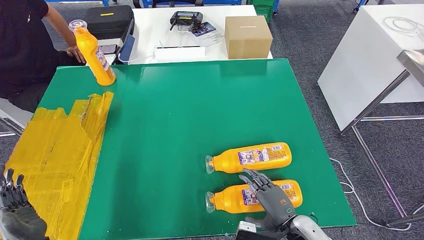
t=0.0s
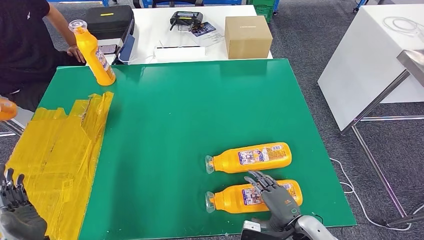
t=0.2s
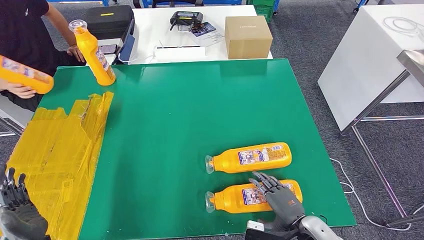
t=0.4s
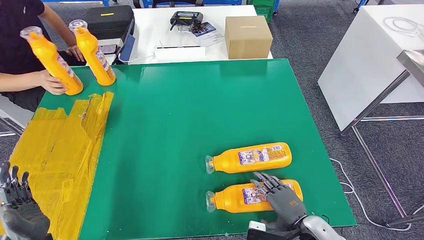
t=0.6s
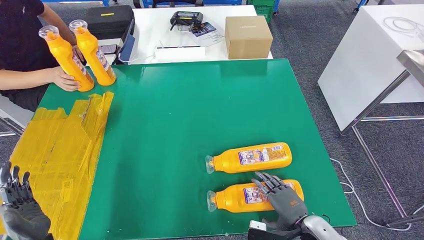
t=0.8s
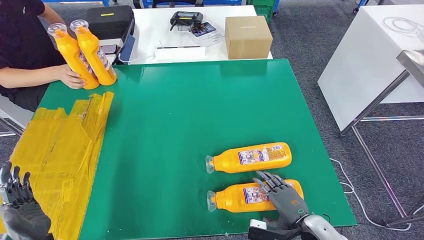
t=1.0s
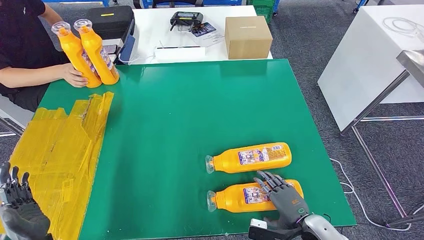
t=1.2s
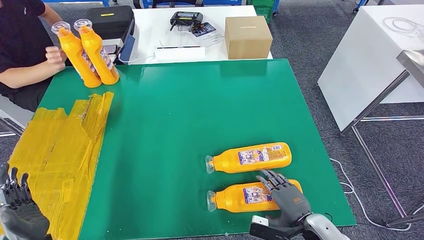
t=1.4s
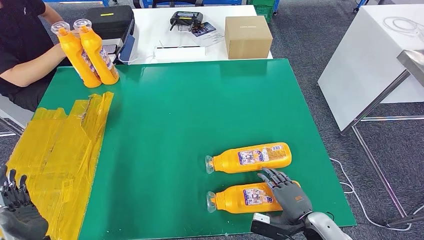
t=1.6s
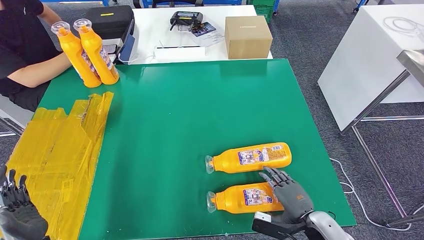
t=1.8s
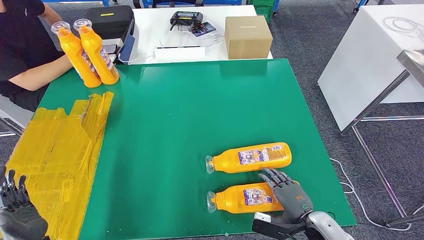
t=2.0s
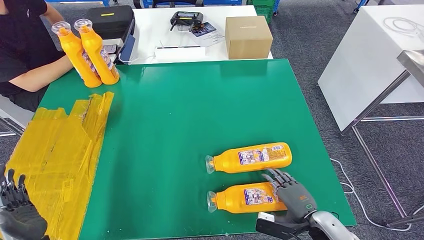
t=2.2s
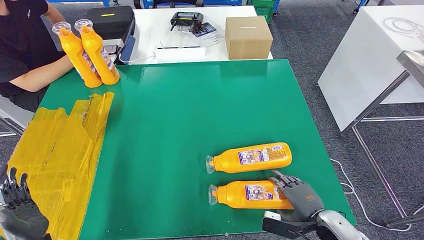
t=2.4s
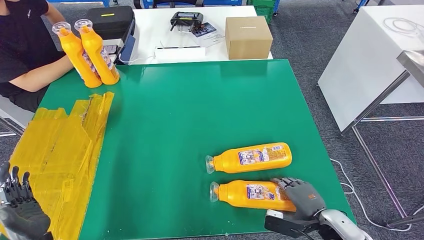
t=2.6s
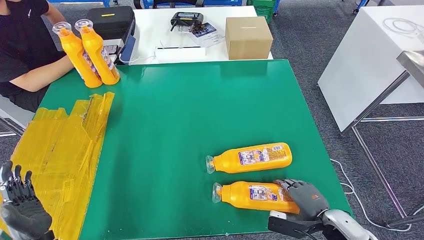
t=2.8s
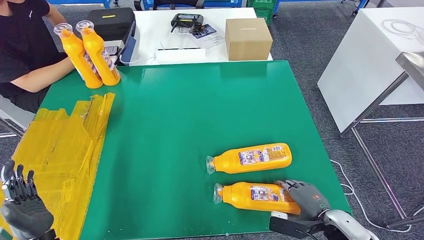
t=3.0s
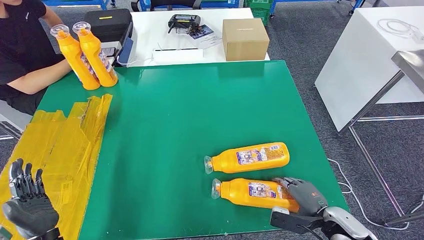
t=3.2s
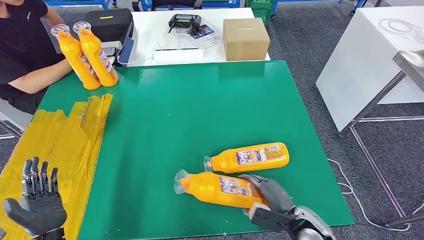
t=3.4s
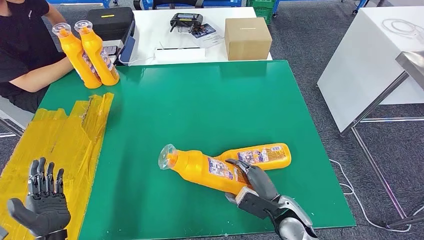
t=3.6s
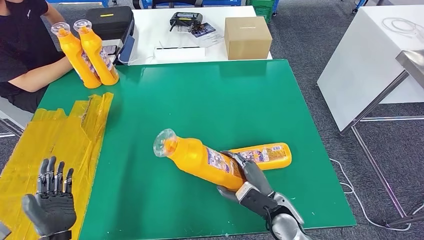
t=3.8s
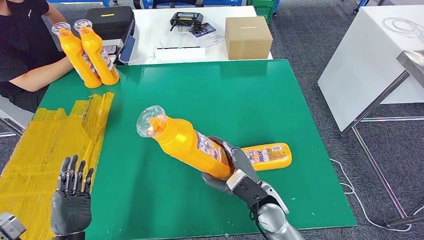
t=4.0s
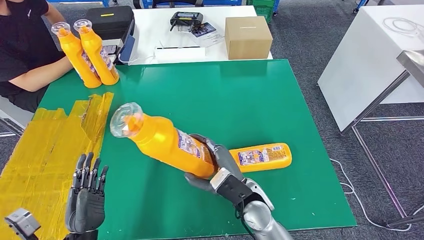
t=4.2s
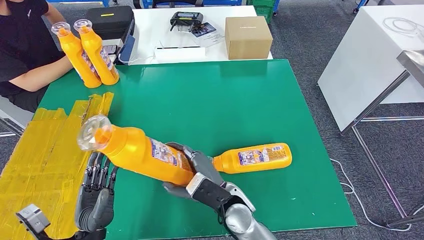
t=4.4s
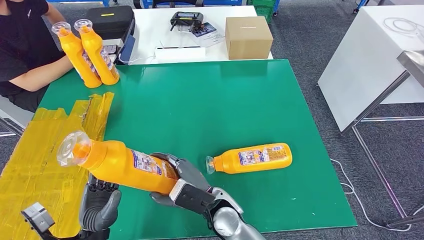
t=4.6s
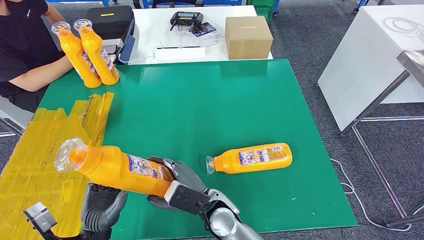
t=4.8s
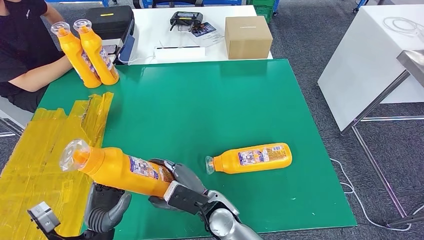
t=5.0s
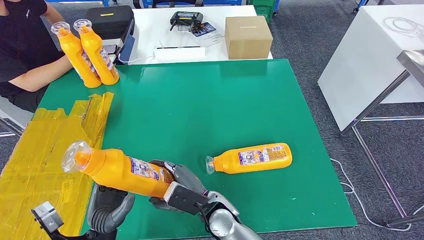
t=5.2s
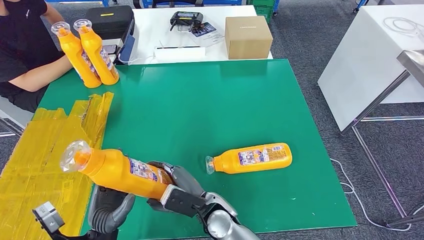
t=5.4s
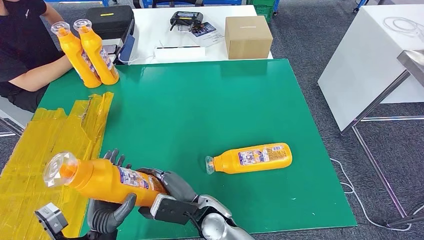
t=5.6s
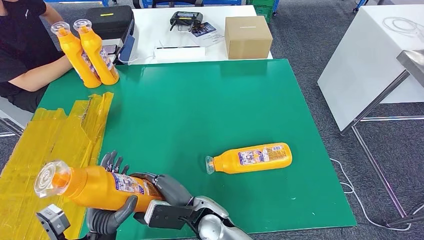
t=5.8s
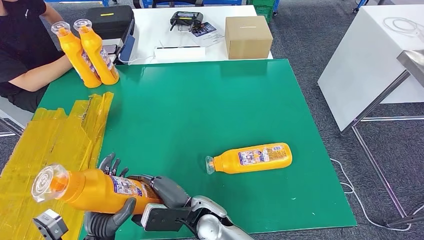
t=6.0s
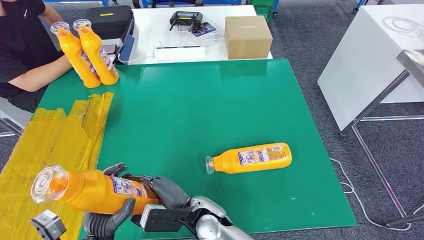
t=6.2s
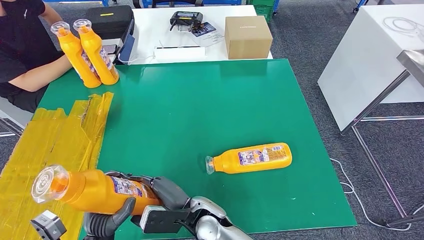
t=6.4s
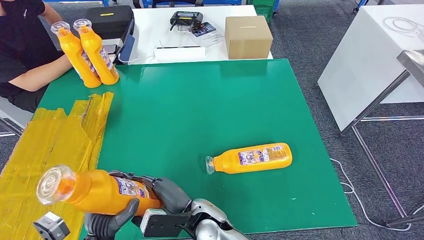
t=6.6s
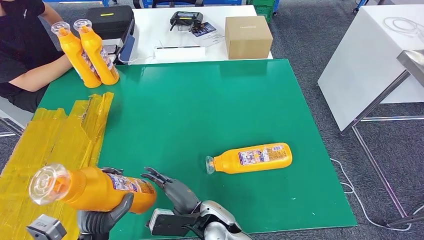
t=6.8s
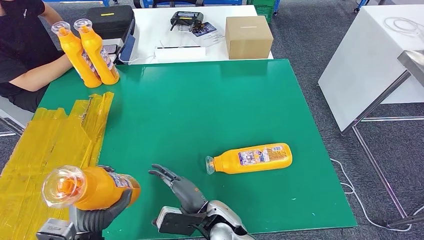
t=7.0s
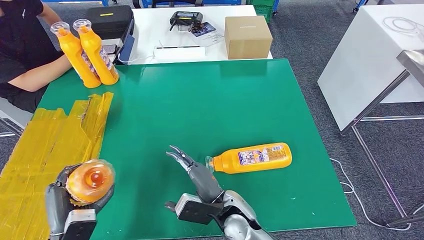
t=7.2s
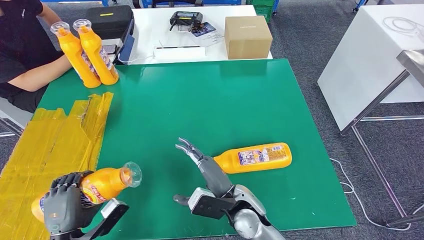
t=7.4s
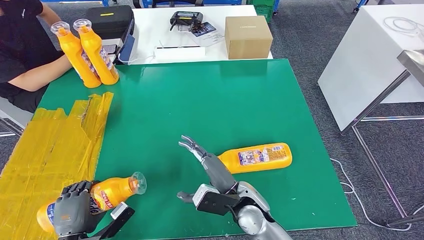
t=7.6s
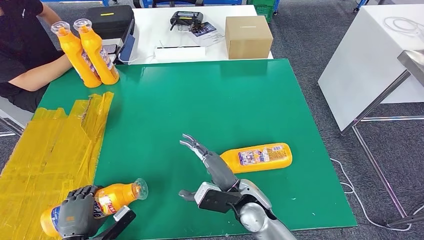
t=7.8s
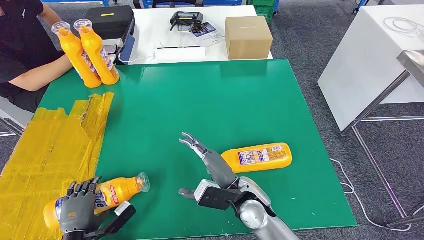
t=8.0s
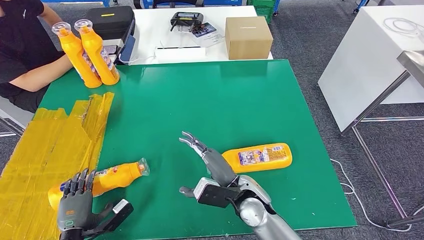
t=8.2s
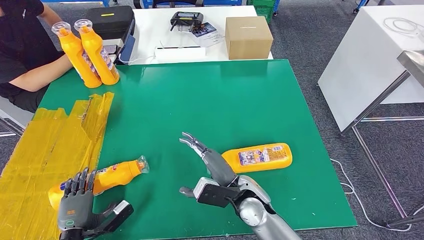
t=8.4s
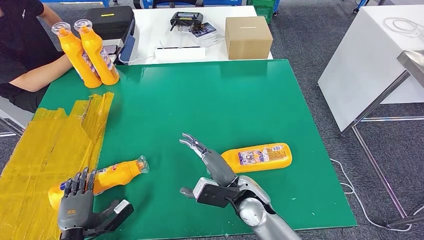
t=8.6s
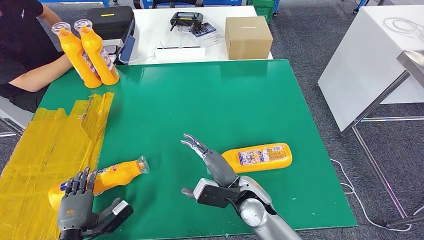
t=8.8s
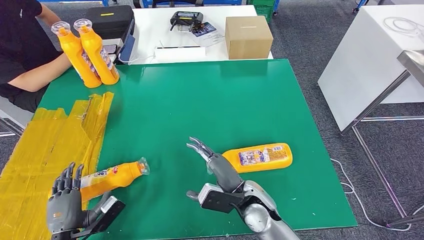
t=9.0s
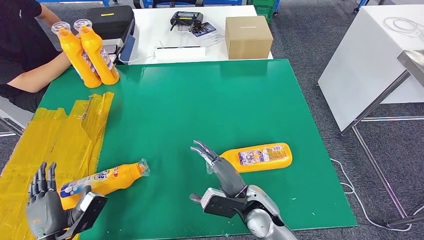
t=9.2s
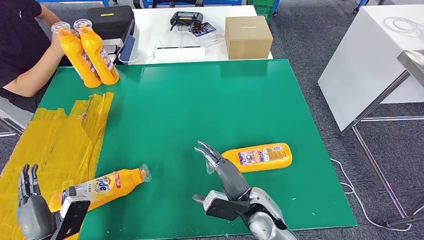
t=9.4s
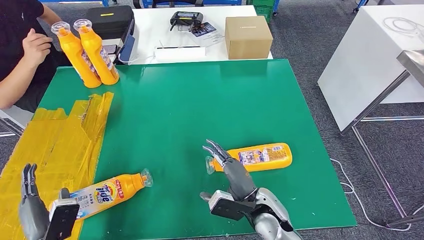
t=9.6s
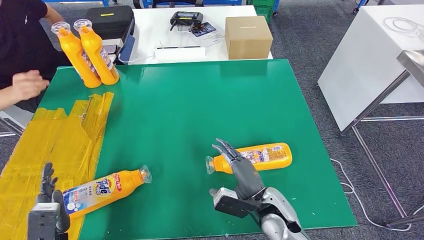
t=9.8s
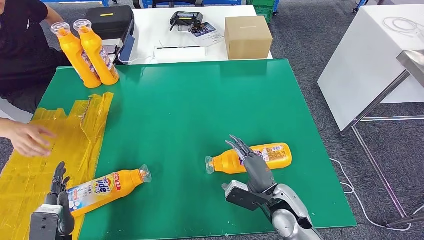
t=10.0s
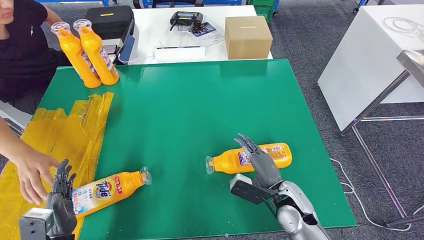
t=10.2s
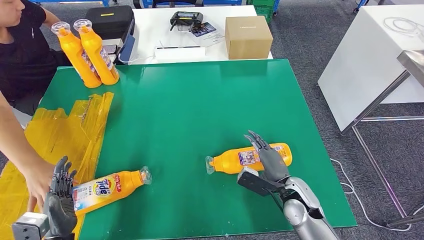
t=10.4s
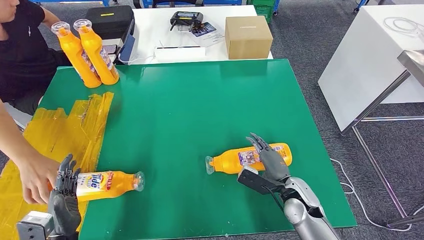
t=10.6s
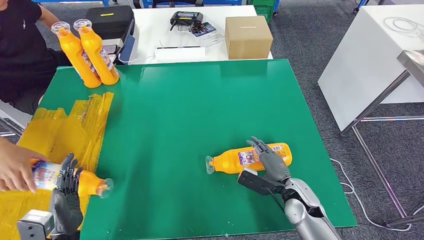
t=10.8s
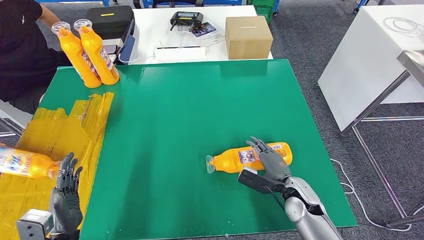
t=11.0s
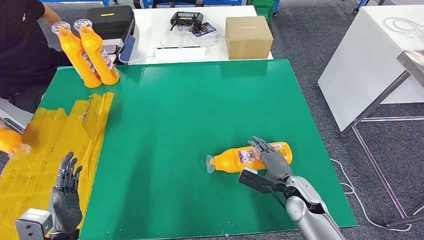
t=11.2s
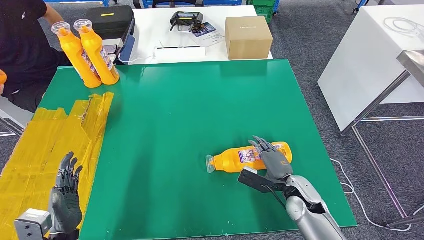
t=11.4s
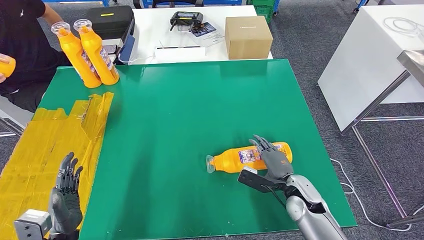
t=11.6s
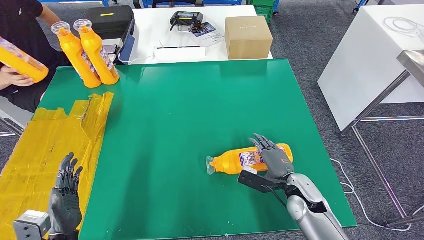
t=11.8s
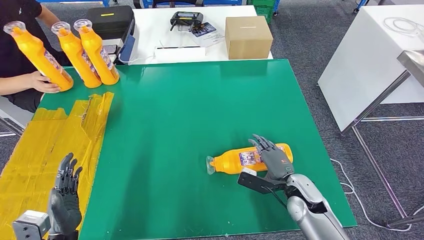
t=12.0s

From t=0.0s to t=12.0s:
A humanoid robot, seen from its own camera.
Step, from t=0.0s to t=3.4s: Pick up the bottle from the table.
Step, from t=3.8s to t=9.4s: Flip the bottle to face forward.
From t=0.0s to t=1.6s: The hands make only small movements.
From t=1.6s to t=3.0s: The right hand is displaced to the right by some 5 cm.
From t=4.4s to t=6.0s: The right hand goes approximately 5 cm to the left.
From t=6.0s to t=7.6s: The left hand is displaced to the left by approximately 10 cm. Meanwhile the right hand travels to the right by some 10 cm.
From t=7.6s to t=9.0s: The hands stay close to where they were, moving slightly.
From t=9.0s to t=10.4s: The right hand moves to the right, approximately 10 cm.
From t=10.4s to t=12.0s: The hands move only a little.

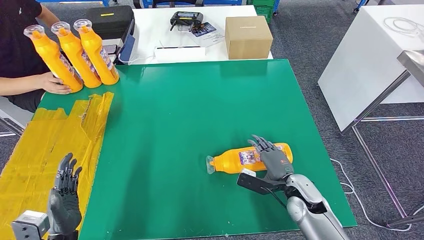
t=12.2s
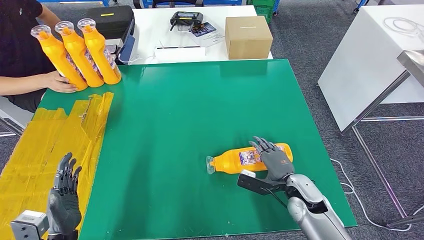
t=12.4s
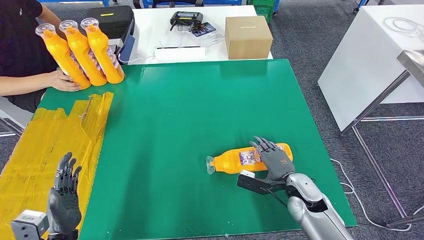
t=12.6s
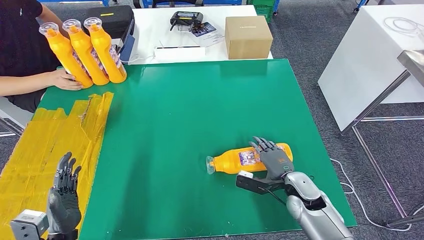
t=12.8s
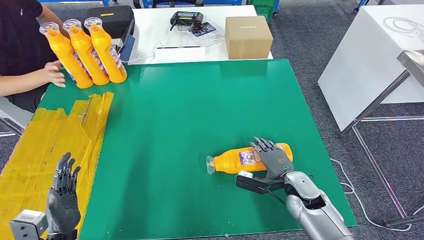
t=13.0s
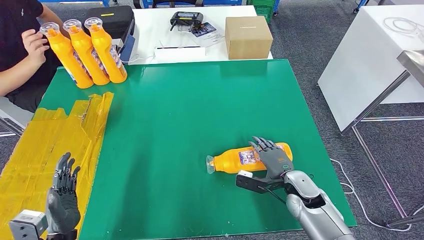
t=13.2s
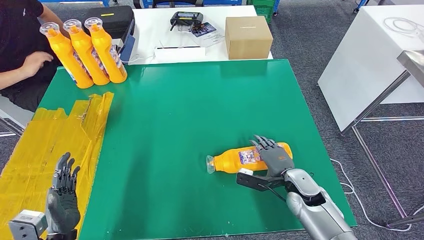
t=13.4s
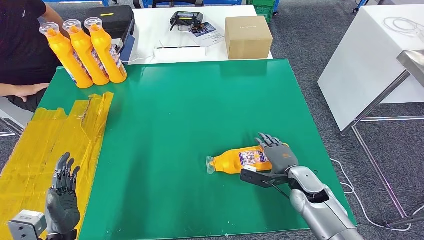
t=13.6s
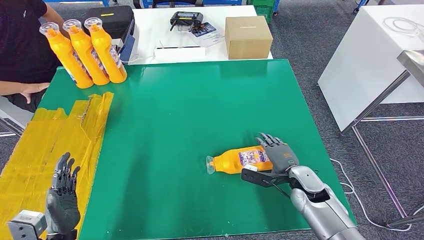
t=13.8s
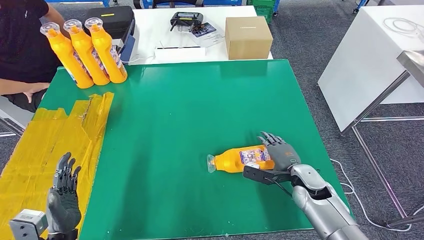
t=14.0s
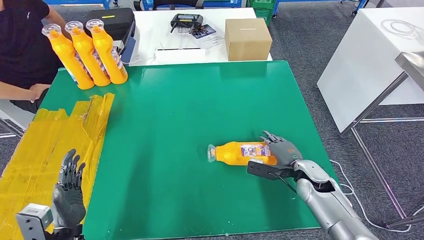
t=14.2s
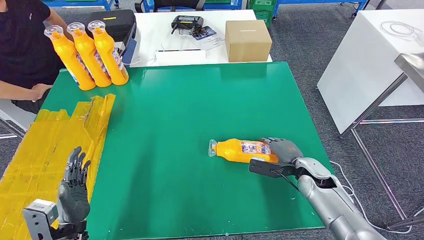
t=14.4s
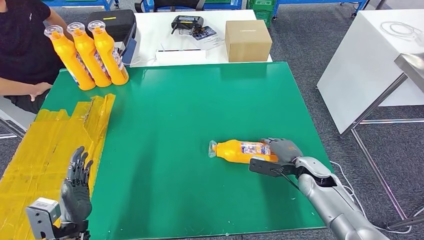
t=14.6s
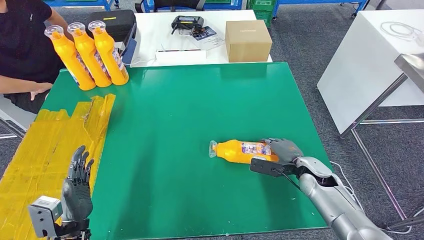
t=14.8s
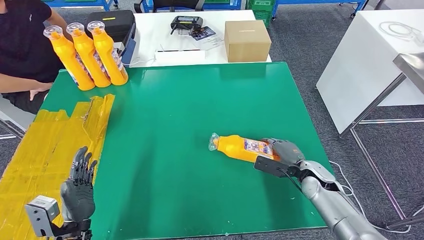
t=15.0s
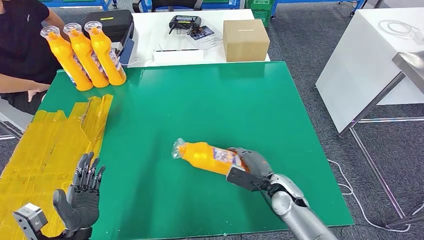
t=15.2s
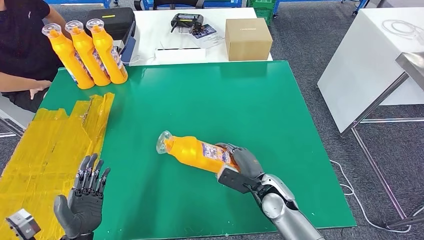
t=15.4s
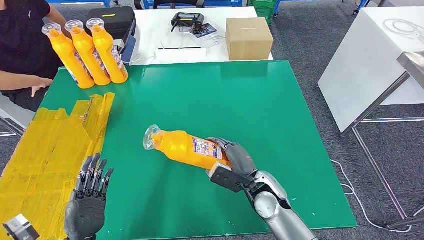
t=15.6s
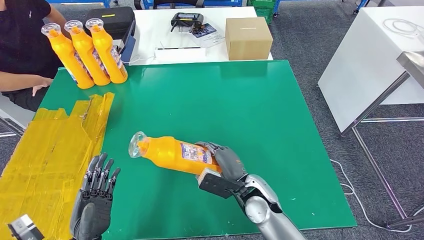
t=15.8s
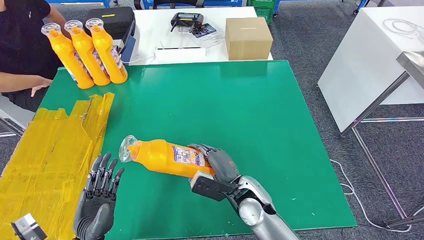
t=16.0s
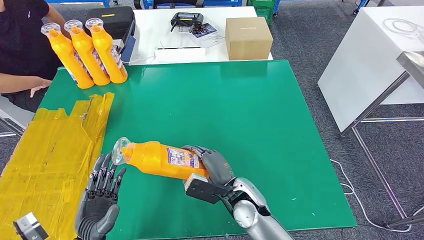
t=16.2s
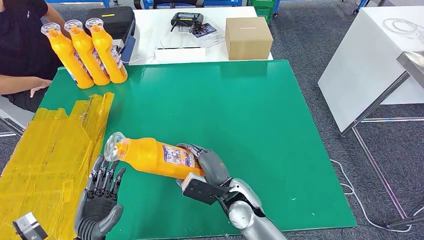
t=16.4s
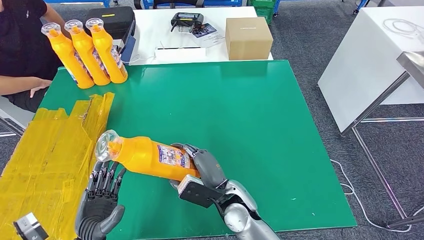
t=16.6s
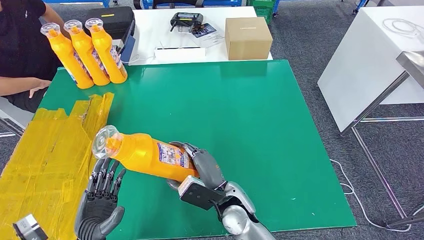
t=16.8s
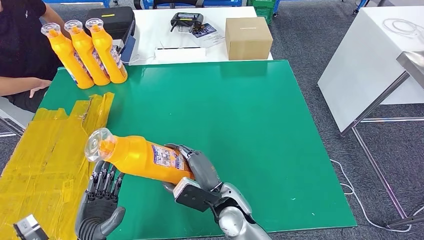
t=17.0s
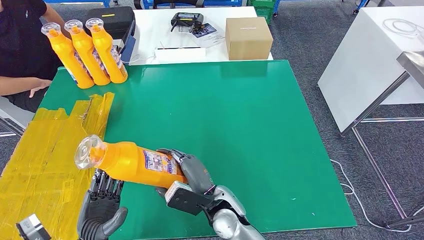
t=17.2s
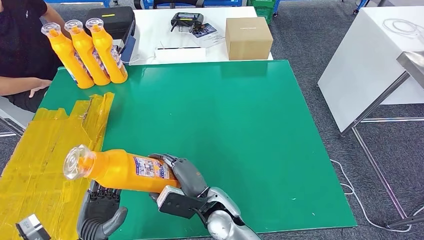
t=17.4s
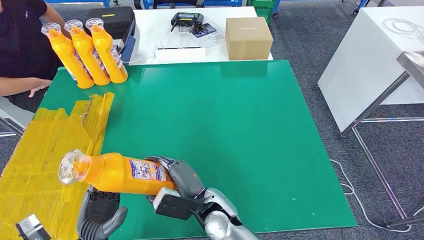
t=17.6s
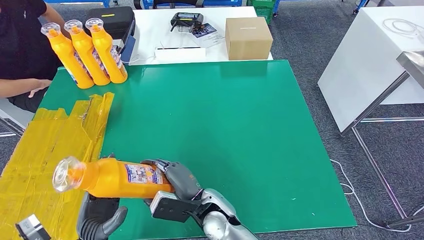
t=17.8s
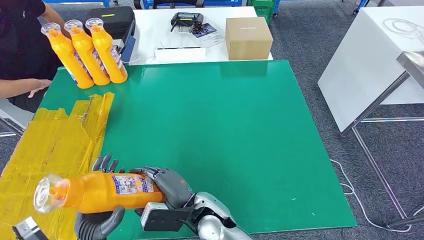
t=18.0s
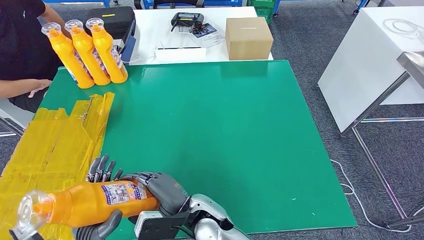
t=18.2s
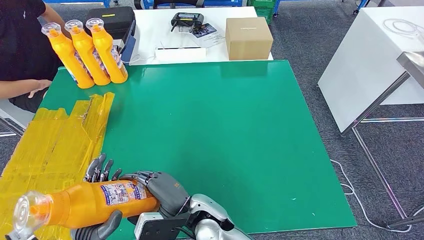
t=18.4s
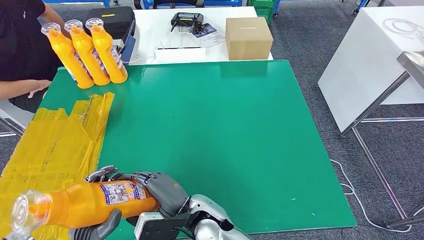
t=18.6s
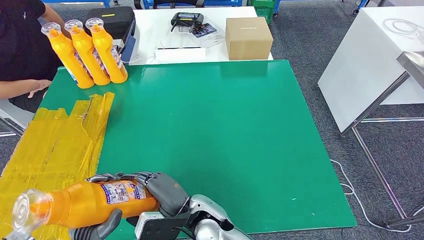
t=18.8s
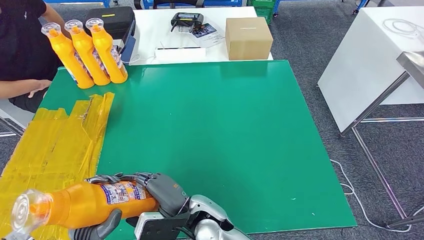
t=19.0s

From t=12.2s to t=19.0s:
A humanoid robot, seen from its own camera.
Step, from t=12.2s to t=17.4s: Pick up the bottle from the table.
From t=12.2s to t=13.6s: The hands stay close to where they were, moving slightly.
From t=16.2s to t=17.6s: The right hand is displaced to the left by some 10 cm.
From t=17.6s to t=19.0s: There are only small adjustments of the hands.
